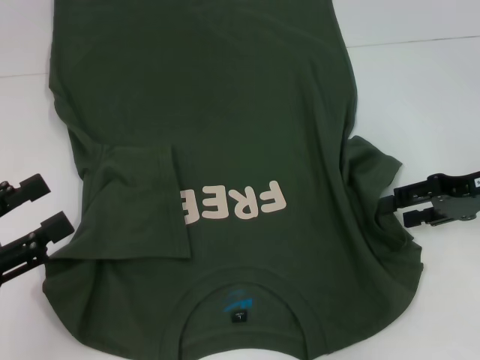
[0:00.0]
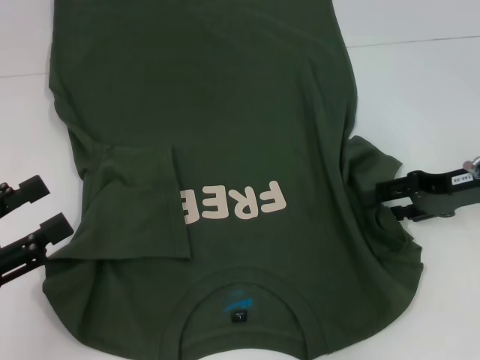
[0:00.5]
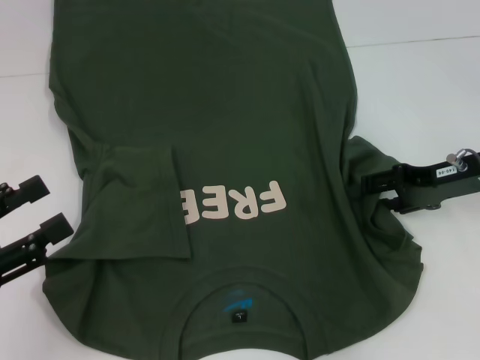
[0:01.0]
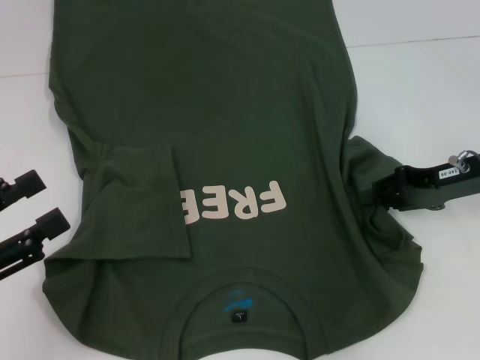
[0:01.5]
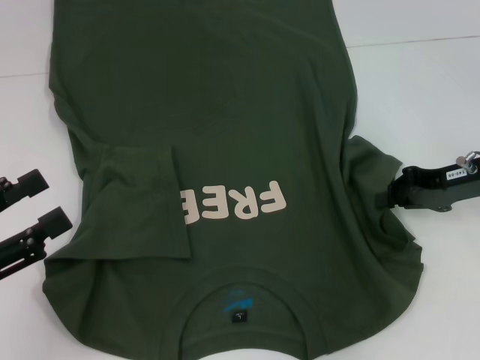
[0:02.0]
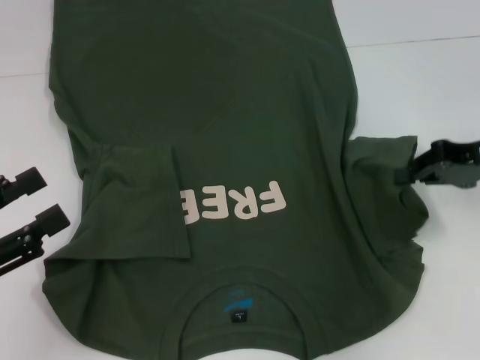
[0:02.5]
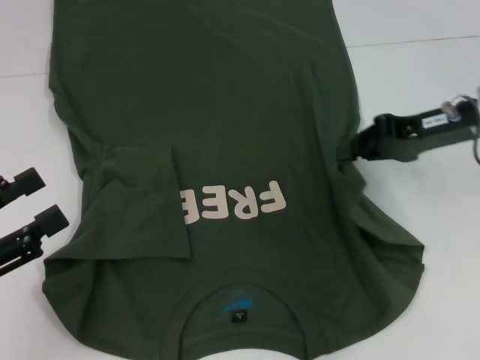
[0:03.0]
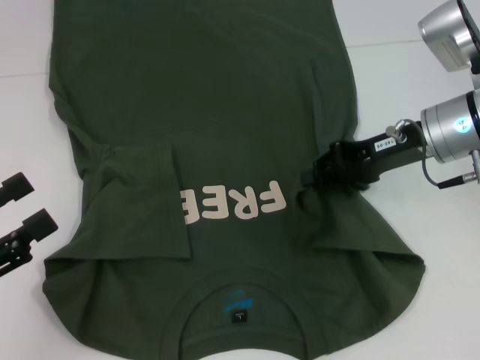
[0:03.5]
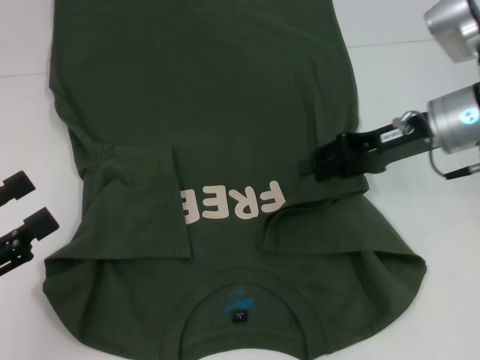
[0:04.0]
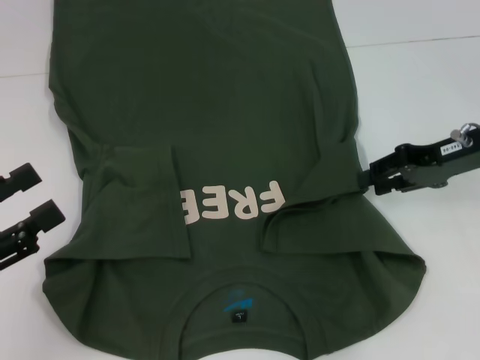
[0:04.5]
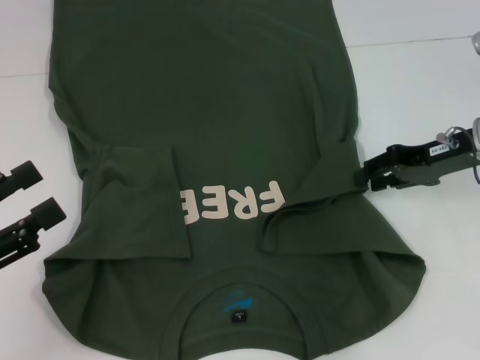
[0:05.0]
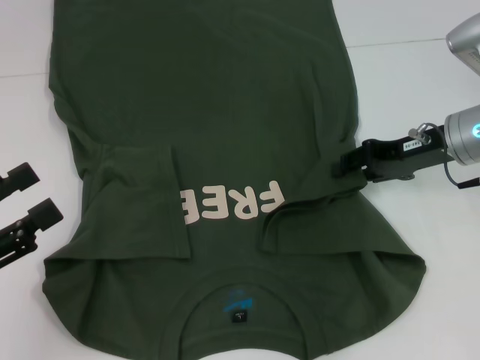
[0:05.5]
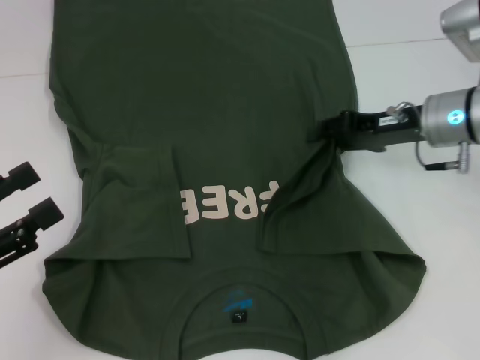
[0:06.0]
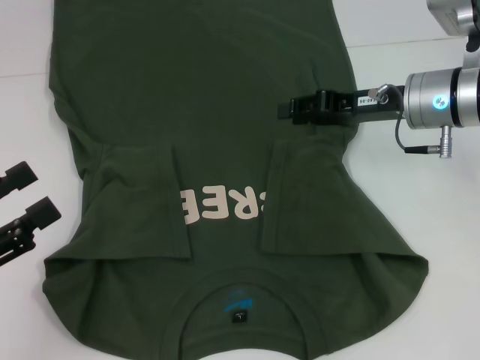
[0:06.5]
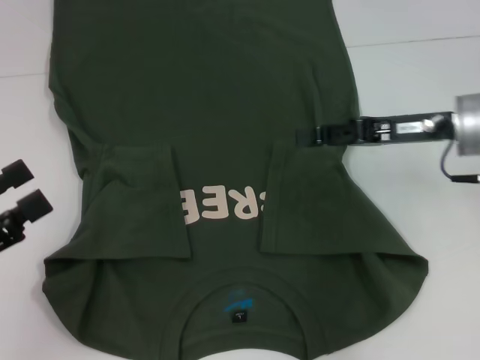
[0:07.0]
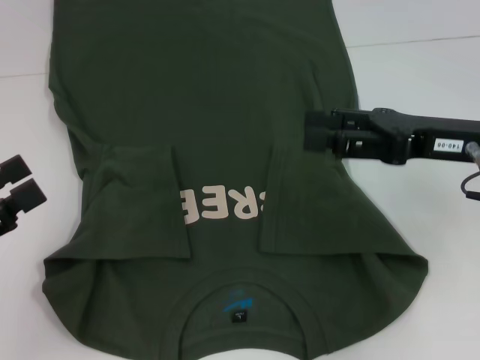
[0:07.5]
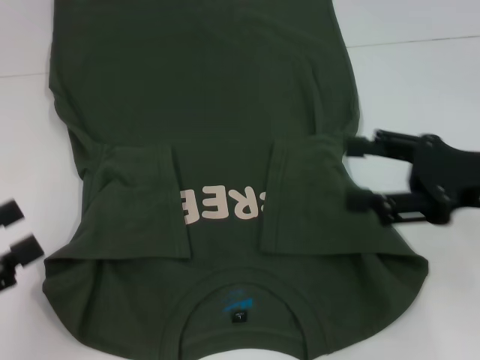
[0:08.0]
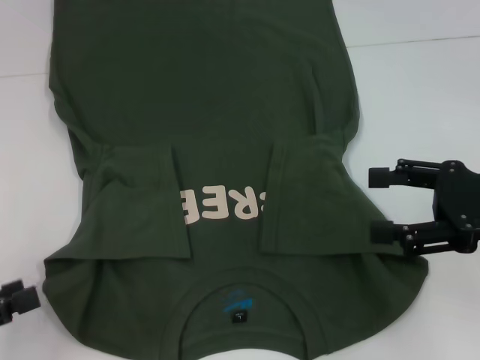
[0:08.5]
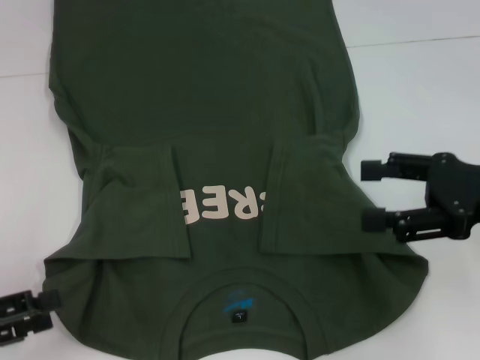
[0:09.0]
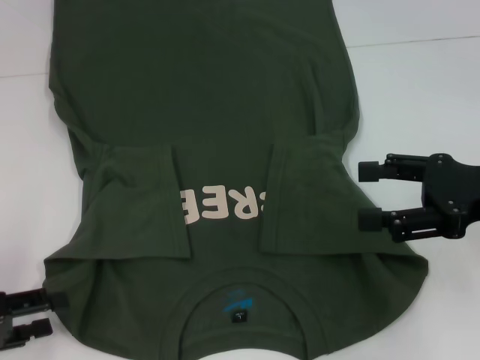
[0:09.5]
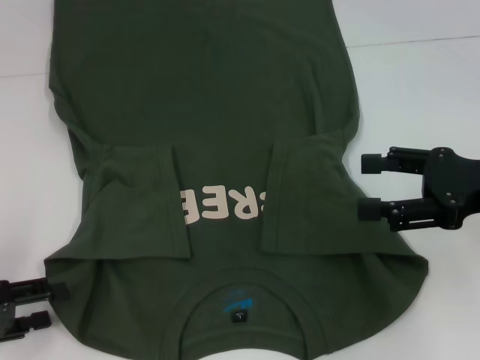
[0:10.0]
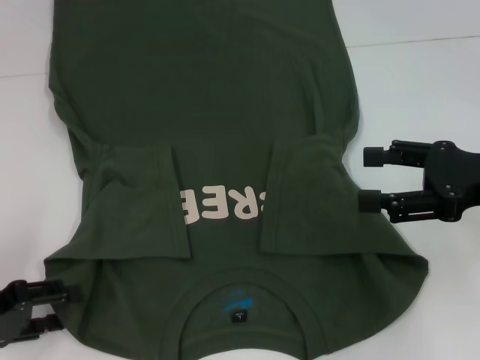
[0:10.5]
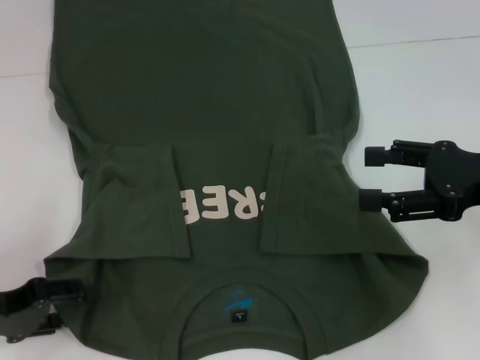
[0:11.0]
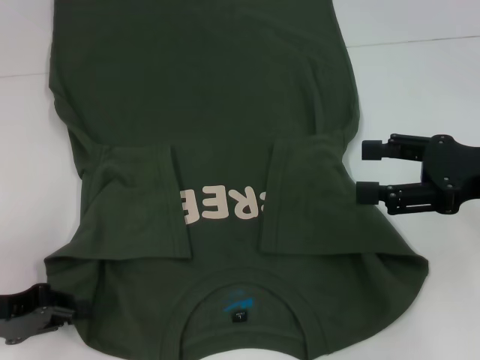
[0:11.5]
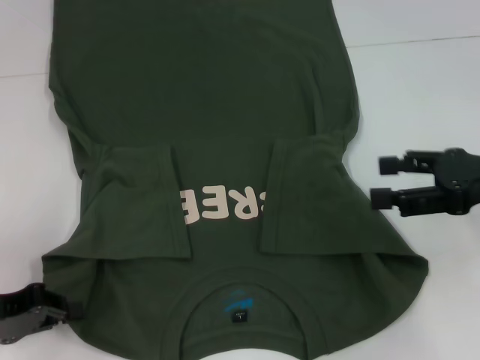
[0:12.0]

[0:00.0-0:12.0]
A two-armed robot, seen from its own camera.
Step, 0:00.0 to 0:06.0: Fold the bottom right sleeve with your right hand.
Step, 0:06.5 to 0:12.0: Grab the bottom left corner with your left hand.
0:00.0 to 0:02.0: The right gripper closes.
0:02.0 to 0:04.0: The right gripper moves to the left, roughly 5 cm.
0:04.0 to 0:06.0: There are only small adjustments of the grippers.
0:06.0 to 0:08.0: The right gripper is displaced backward by approximately 15 cm, and opens.
0:08.0 to 0:10.0: The left gripper changes place by roughly 5 cm.
0:10.0 to 0:12.0: The left gripper closes its fingers.

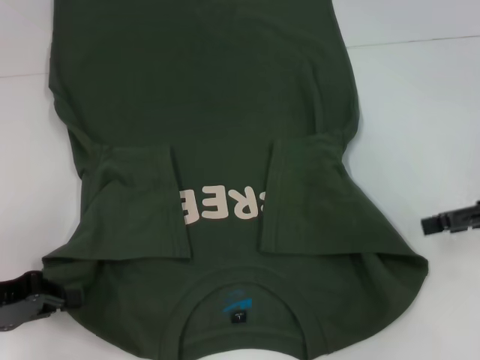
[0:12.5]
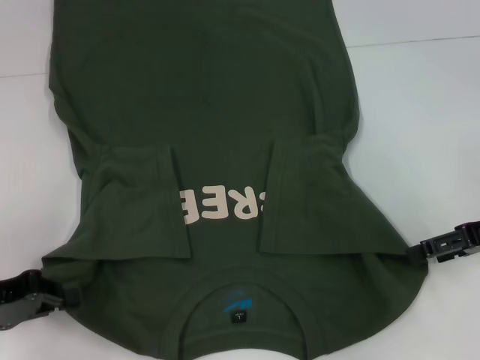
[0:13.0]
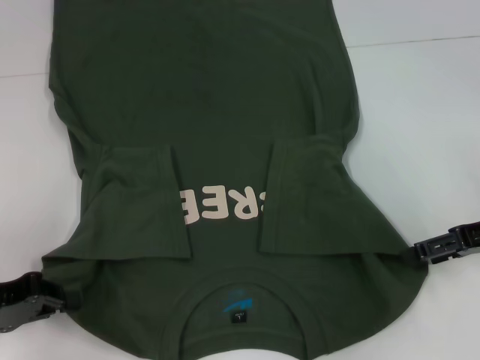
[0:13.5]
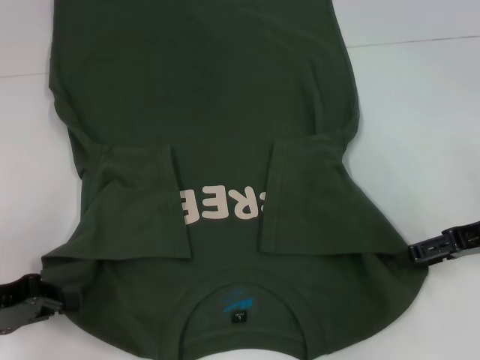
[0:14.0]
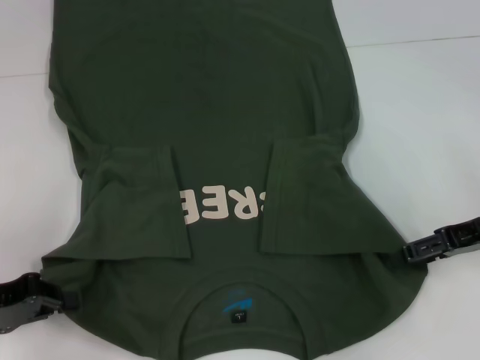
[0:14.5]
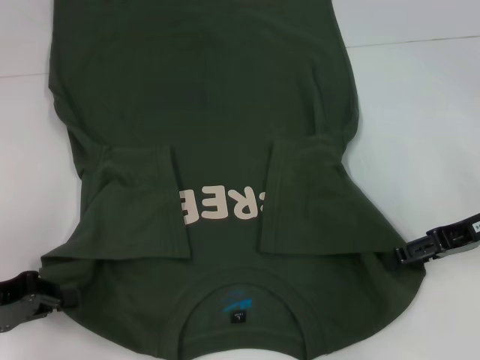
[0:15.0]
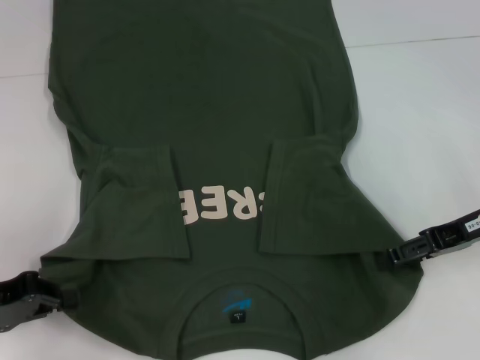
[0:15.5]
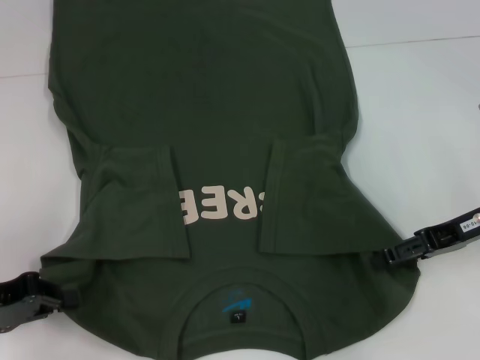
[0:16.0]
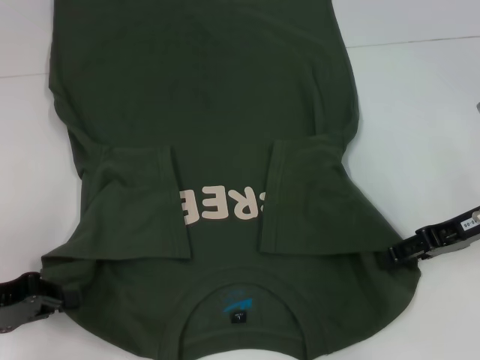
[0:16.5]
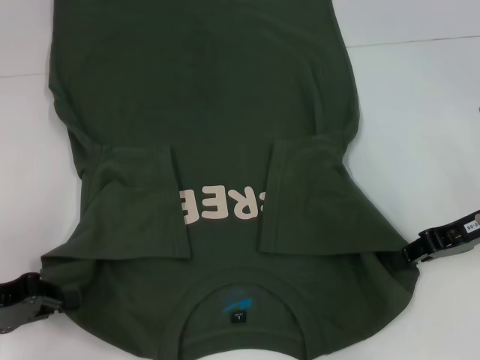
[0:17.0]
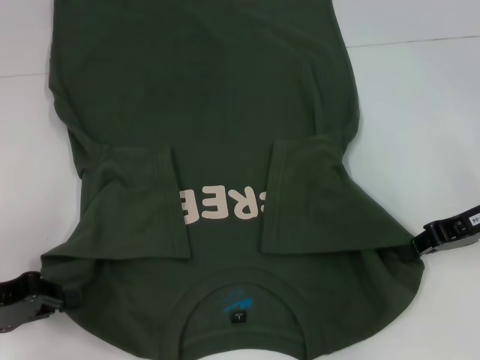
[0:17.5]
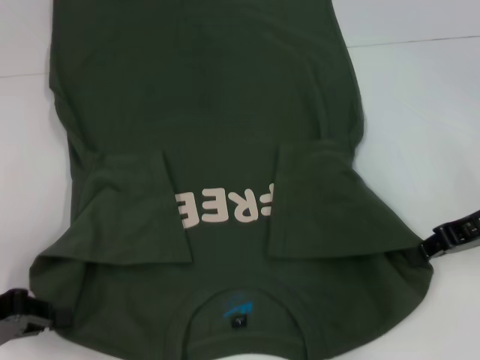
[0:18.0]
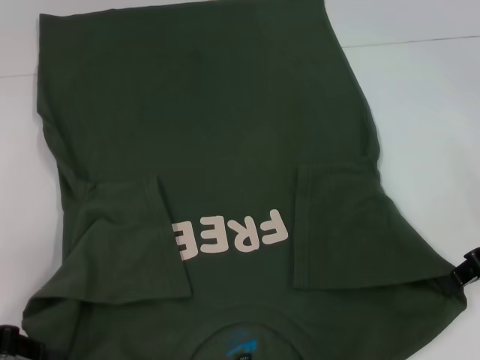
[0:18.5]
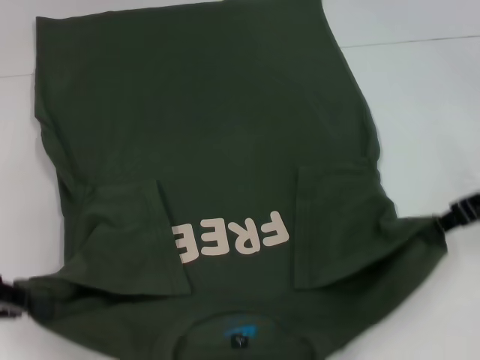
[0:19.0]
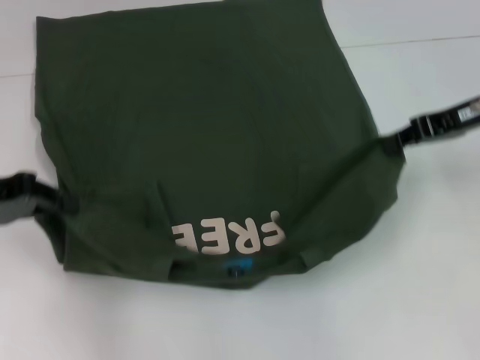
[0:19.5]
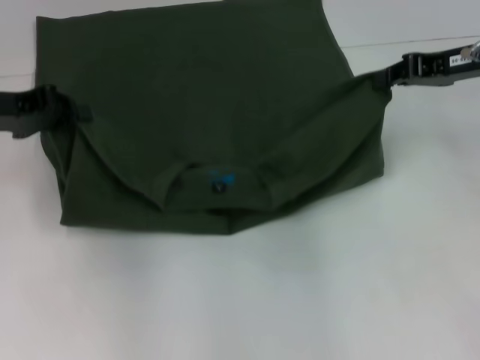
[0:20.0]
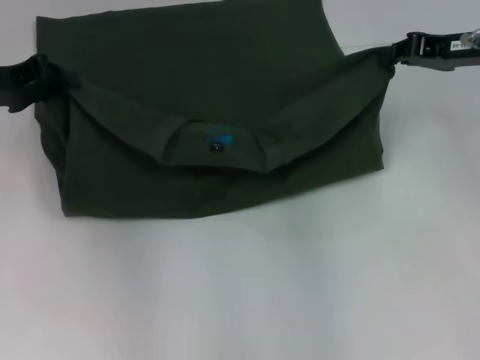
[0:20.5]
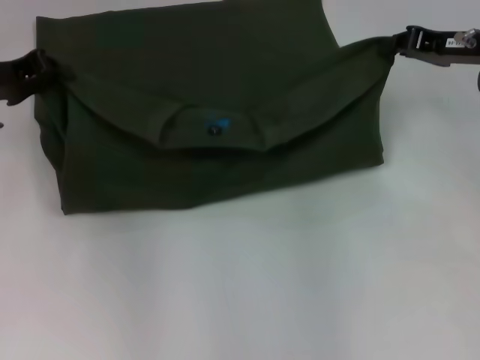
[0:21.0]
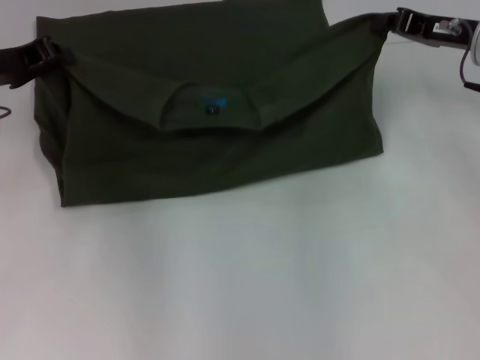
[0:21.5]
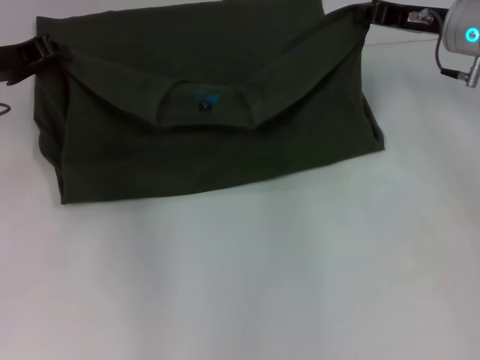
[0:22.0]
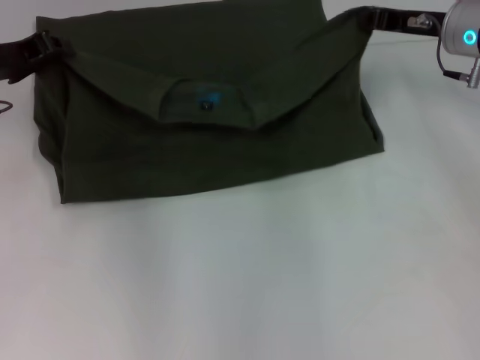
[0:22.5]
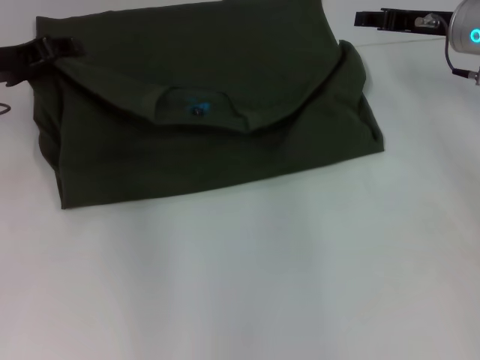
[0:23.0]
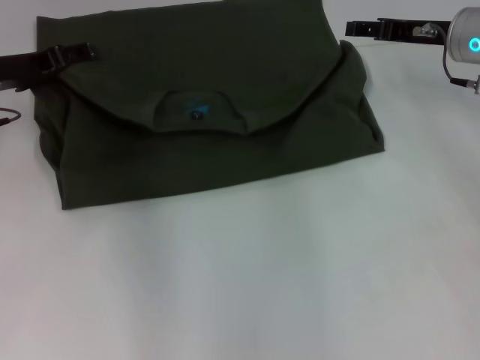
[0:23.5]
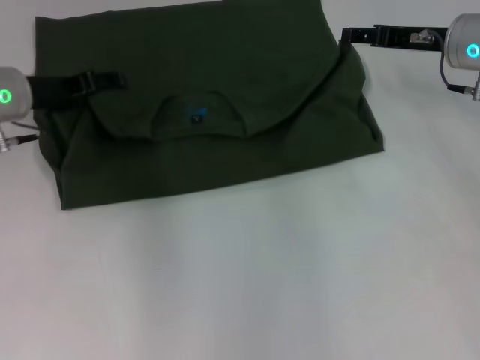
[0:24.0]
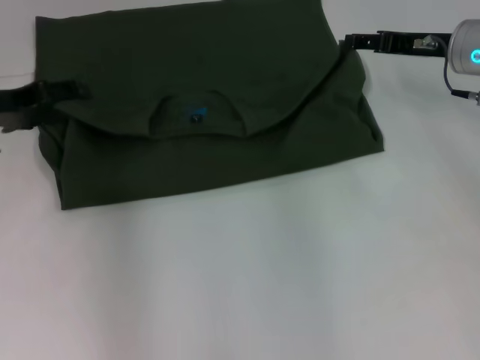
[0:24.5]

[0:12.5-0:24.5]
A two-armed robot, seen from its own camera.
Step, 0:12.5 to 0:17.0: Grab the bottom right corner with your right hand.
Step, 0:17.5 to 0:24.0: Fold the clothes with your left hand.
Step, 0:17.5 to 0:24.0: Fold the clothes with your right hand.
0:12.5 to 0:14.5: The right gripper shifts by some 5 cm.
0:14.5 to 0:16.5: The grippers stay close to where they were, moving slightly.
0:16.5 to 0:18.5: The right gripper closes up.
0:18.5 to 0:20.5: The left gripper shifts approximately 15 cm forward; the right gripper goes roughly 10 cm forward.
0:20.5 to 0:22.5: The right gripper ends up roughly 5 cm from where it was.
0:22.5 to 0:24.5: The right gripper opens. The left gripper opens up.

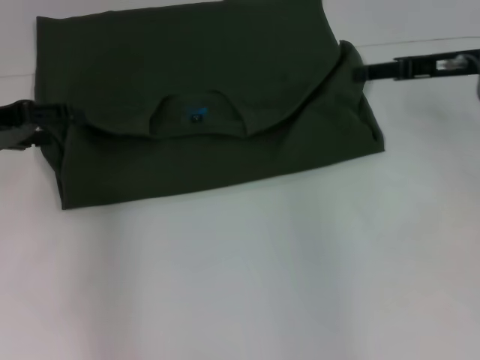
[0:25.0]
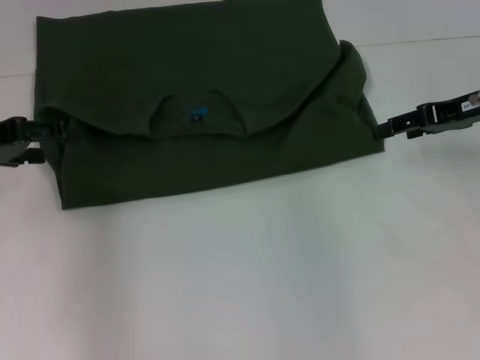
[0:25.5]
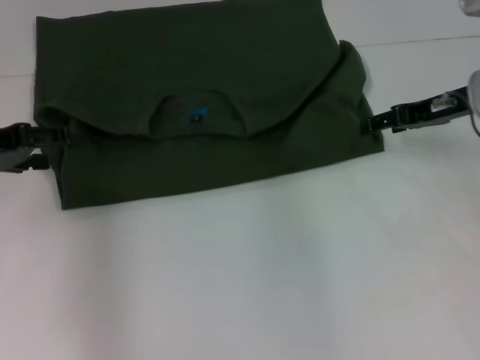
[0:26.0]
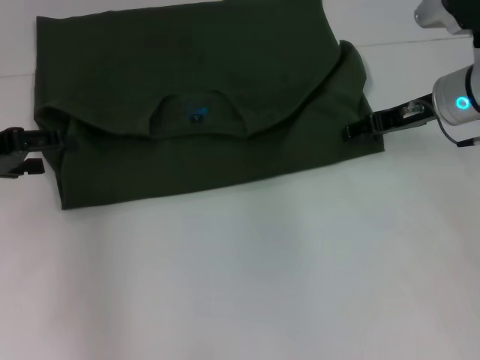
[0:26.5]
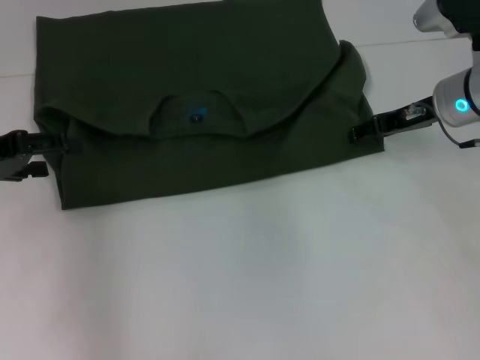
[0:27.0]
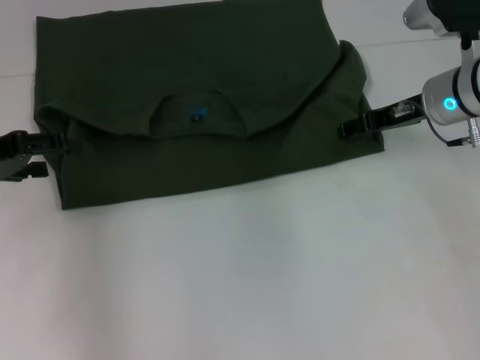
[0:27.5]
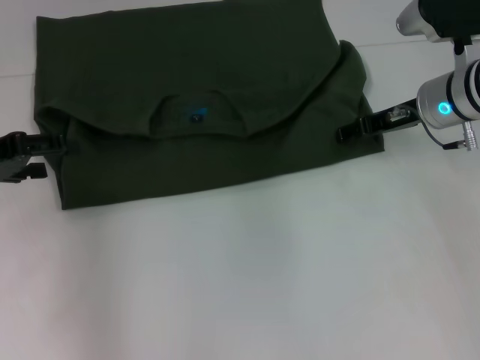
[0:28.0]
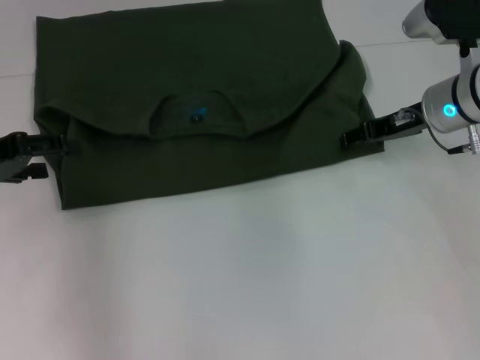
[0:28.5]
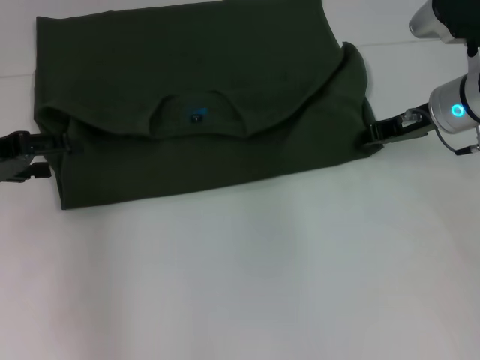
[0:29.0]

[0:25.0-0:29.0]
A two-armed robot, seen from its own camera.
0:25.0 to 0:27.0: The right gripper changes place by approximately 5 cm.
0:27.0 to 0:29.0: The right gripper closes its fingers.
